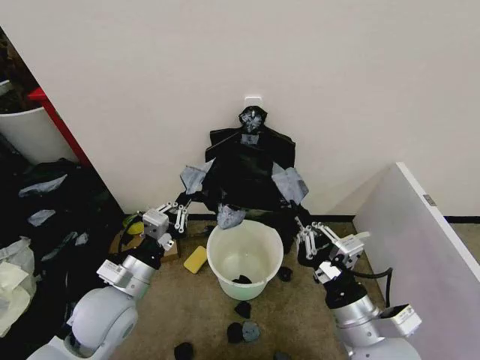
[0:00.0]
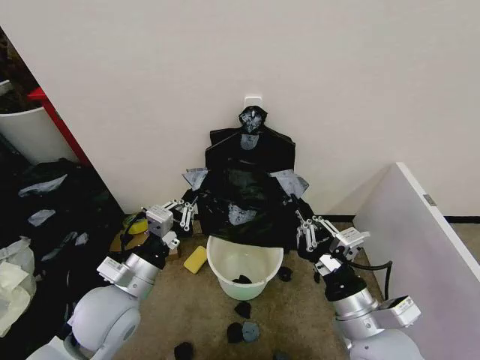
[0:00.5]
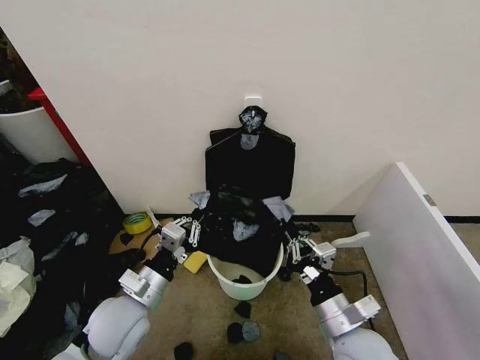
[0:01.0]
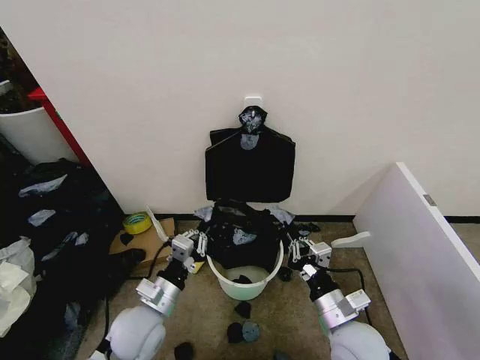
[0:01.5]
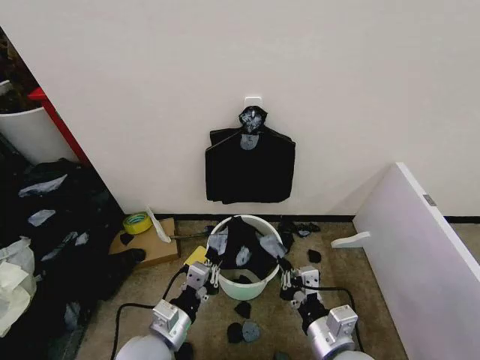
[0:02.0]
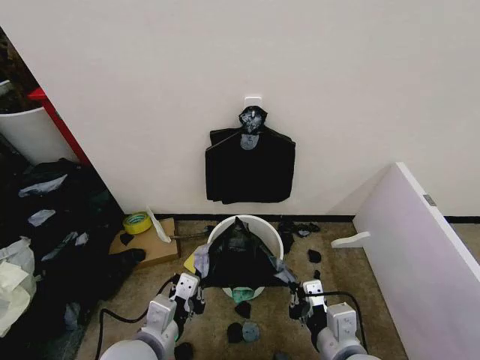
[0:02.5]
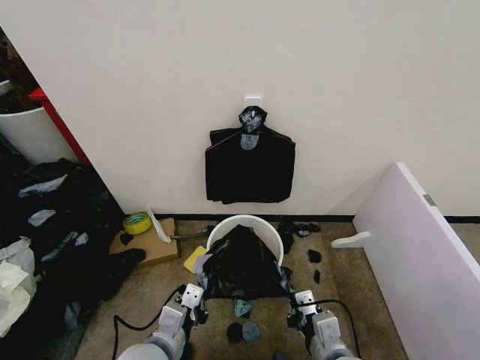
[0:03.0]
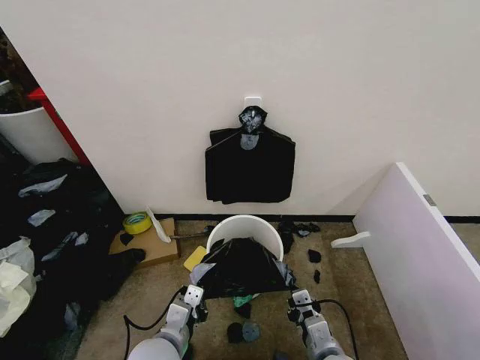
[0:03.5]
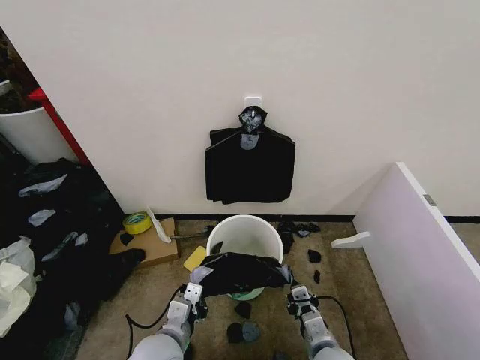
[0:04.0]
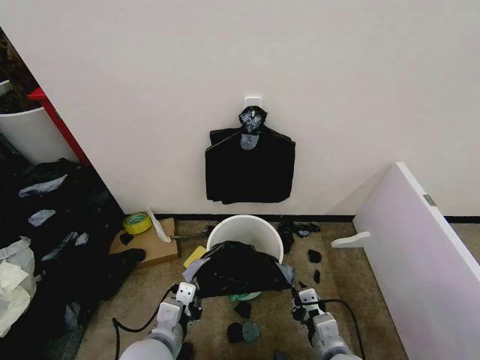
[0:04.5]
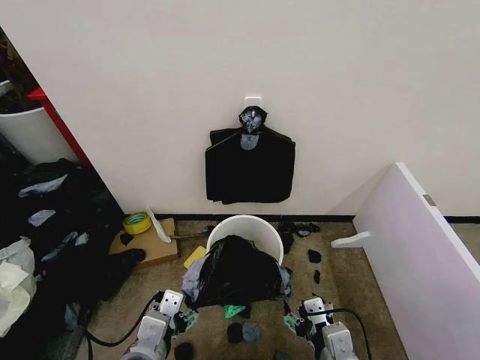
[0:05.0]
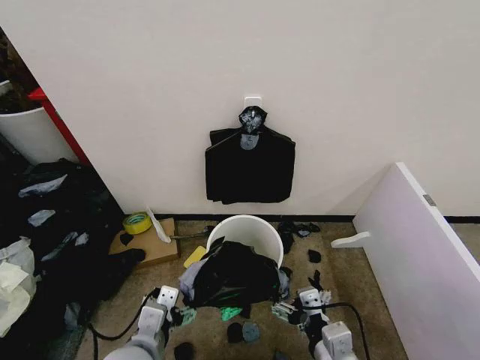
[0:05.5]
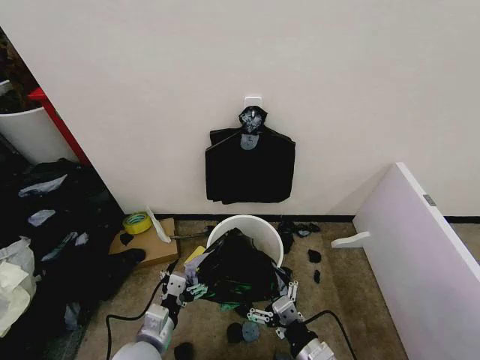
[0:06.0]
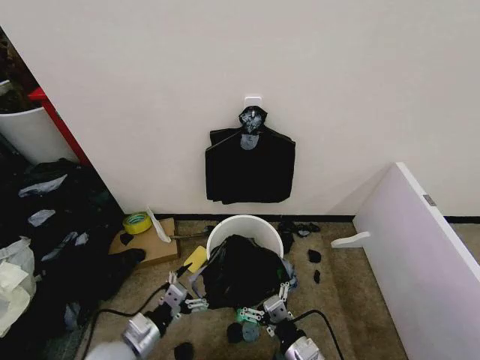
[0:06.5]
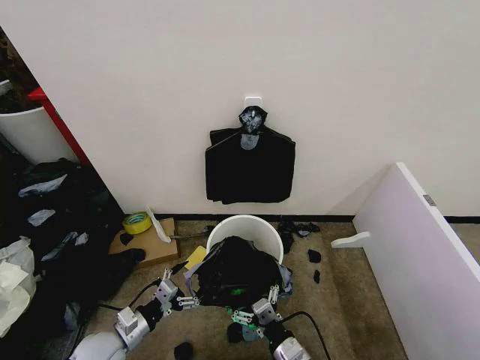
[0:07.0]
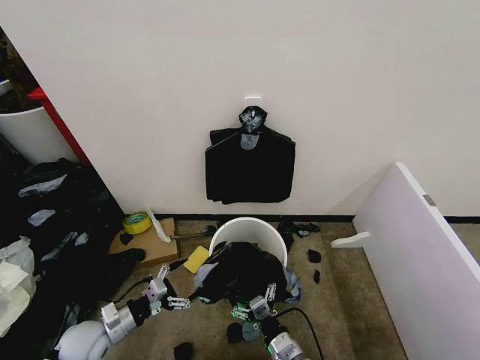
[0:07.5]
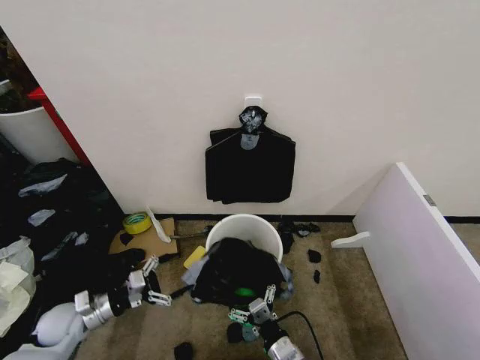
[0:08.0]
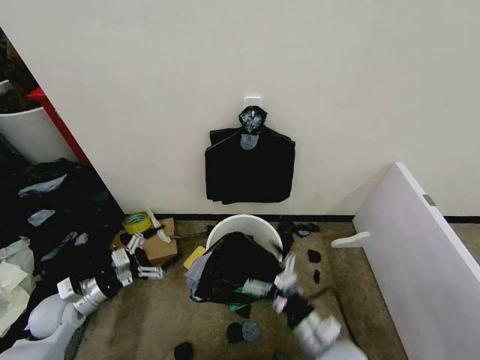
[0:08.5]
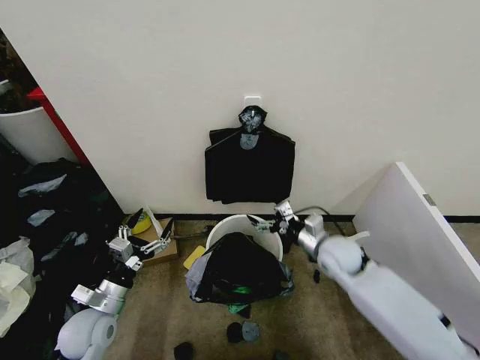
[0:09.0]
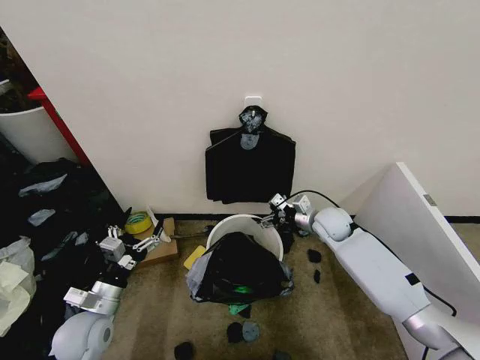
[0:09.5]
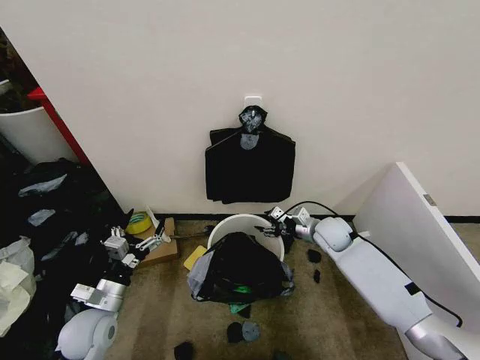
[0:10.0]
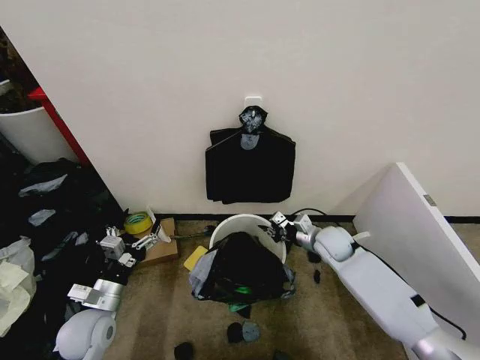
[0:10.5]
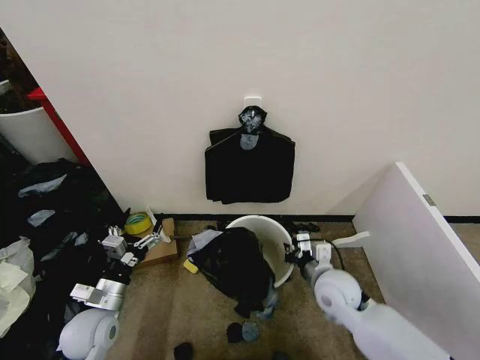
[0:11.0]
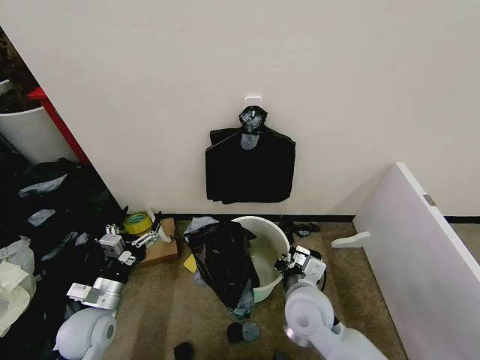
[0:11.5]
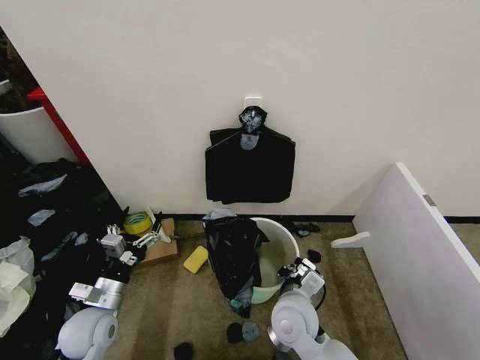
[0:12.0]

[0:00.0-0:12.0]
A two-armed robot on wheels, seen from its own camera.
Task of the whole recording: Place the garbage bag over the trash bin.
0:00.0 to 0:02.0: The left gripper is displaced downward, backward and to the right by approximately 10 cm.
0:02.0 to 0:04.0: The right gripper shifts approximately 10 cm downward, while the left gripper travels upward and back again, roughly 5 cm each way.
0:04.0 to 0:06.0: The right gripper opens up; the left gripper goes upward and returns, some 10 cm each way, and opens.
0:06.0 to 0:08.0: The left gripper moves to the left and forward, roughly 20 cm. Meanwhile the right gripper travels downward and to the left by approximately 10 cm.
0:08.0 to 0:10.0: The right gripper goes roughly 35 cm forward. Meanwhile the left gripper shifts some 10 cm to the right.
0:10.0 to 0:12.0: The right gripper travels backward and to the left by some 25 cm, and closes.

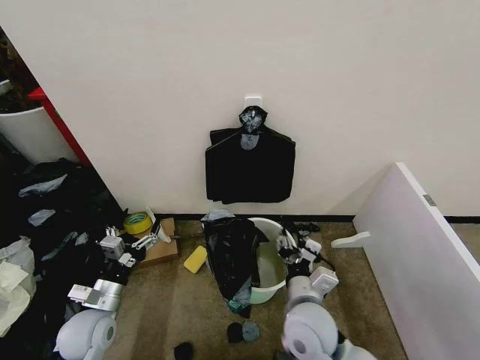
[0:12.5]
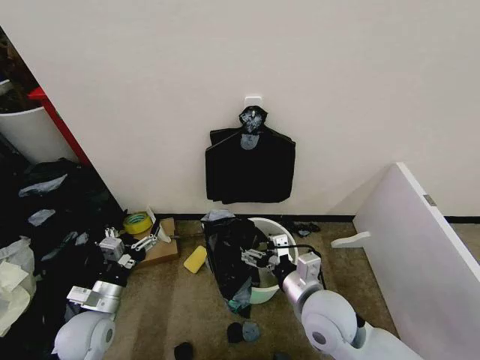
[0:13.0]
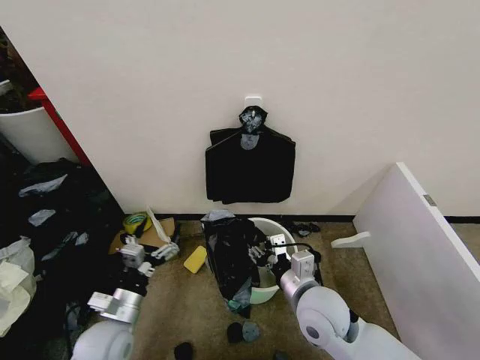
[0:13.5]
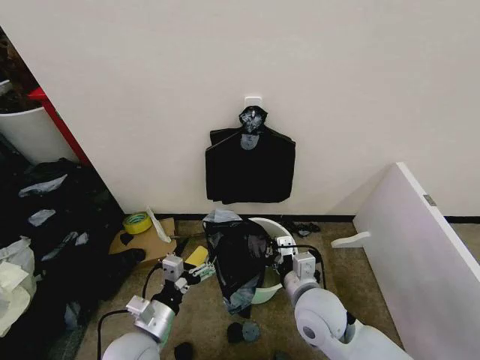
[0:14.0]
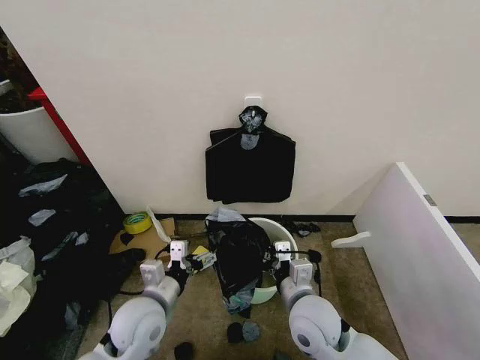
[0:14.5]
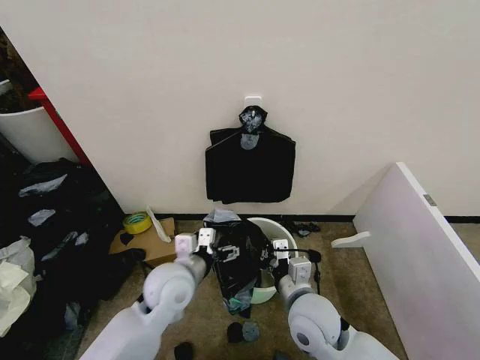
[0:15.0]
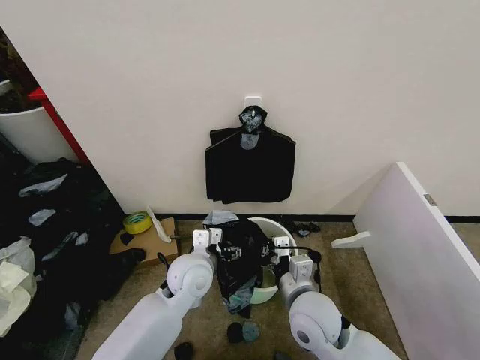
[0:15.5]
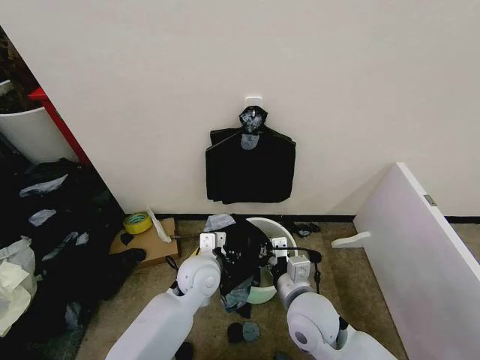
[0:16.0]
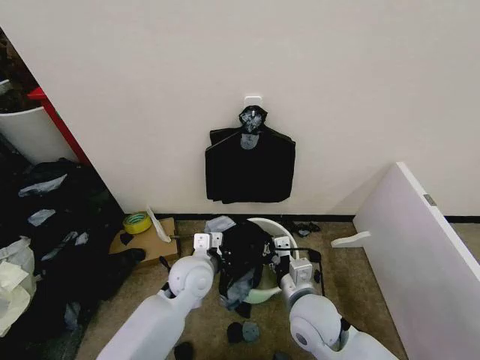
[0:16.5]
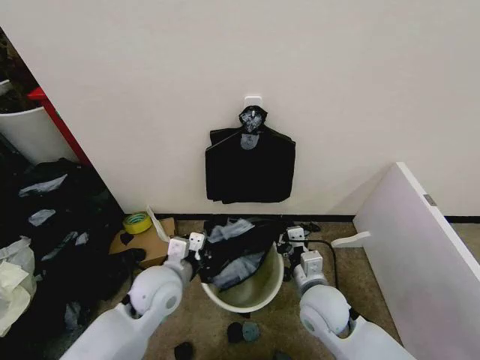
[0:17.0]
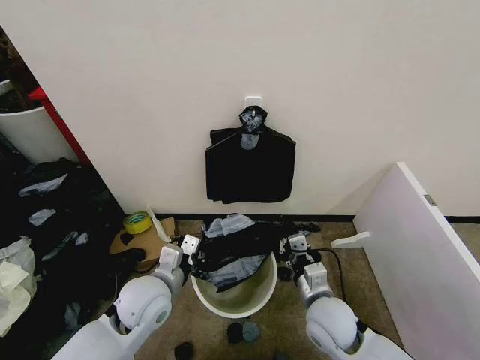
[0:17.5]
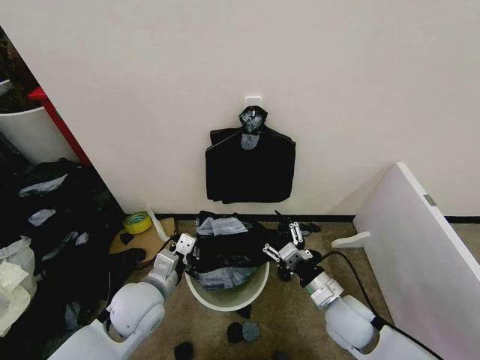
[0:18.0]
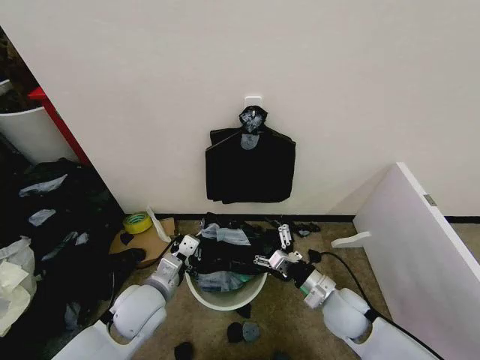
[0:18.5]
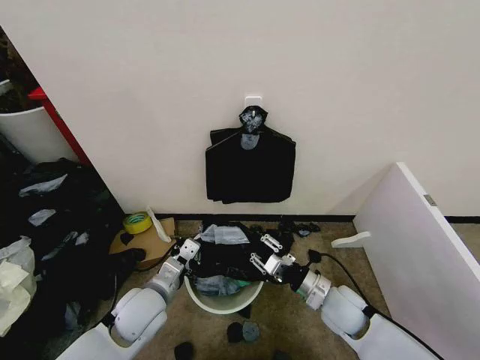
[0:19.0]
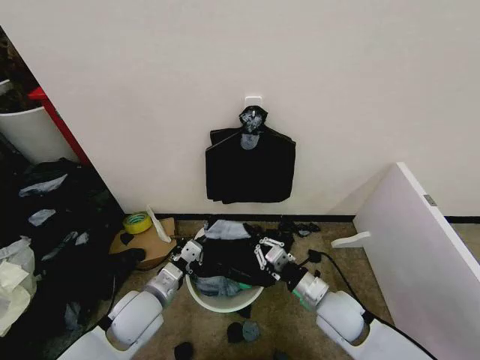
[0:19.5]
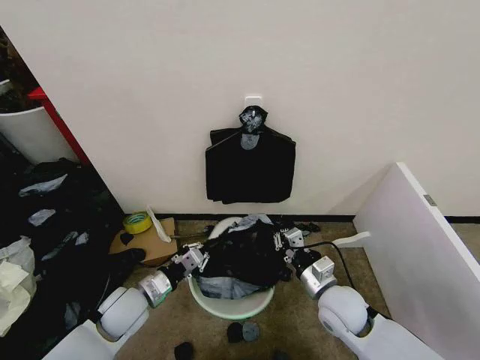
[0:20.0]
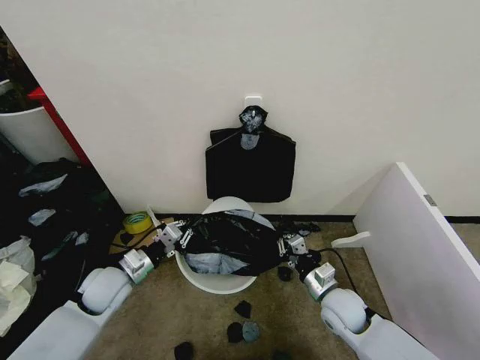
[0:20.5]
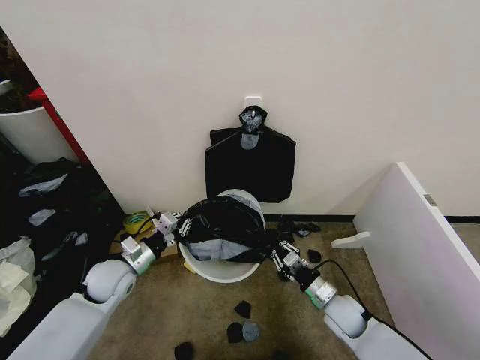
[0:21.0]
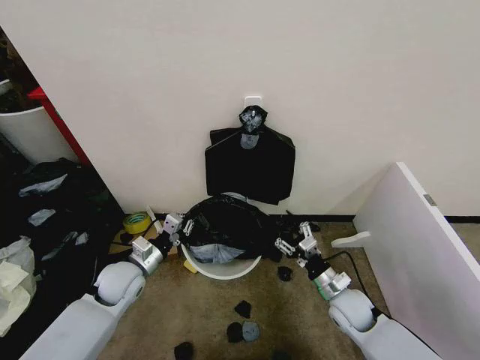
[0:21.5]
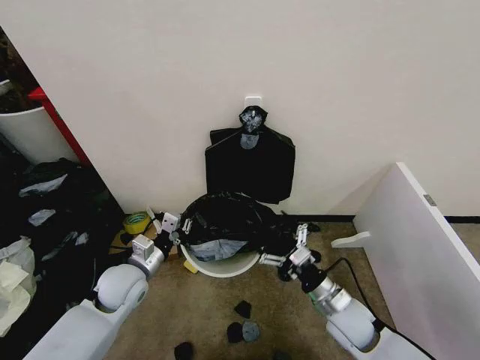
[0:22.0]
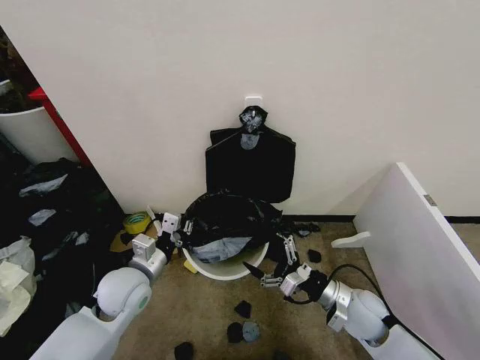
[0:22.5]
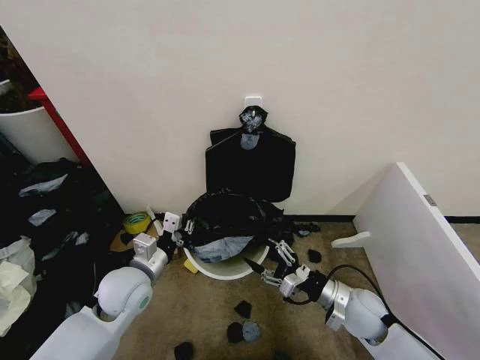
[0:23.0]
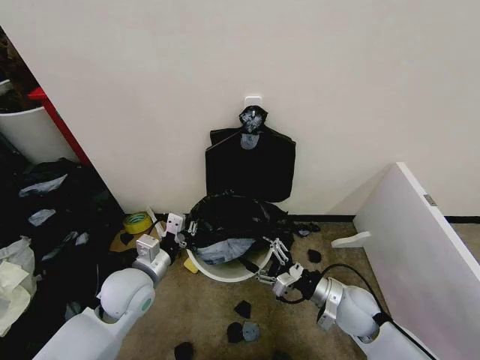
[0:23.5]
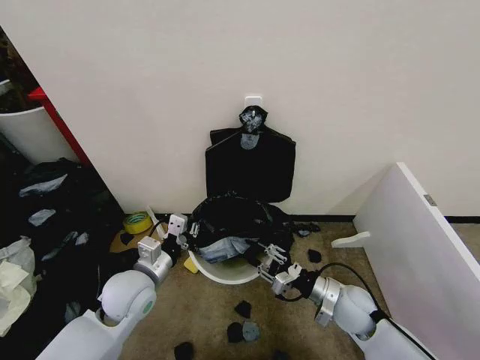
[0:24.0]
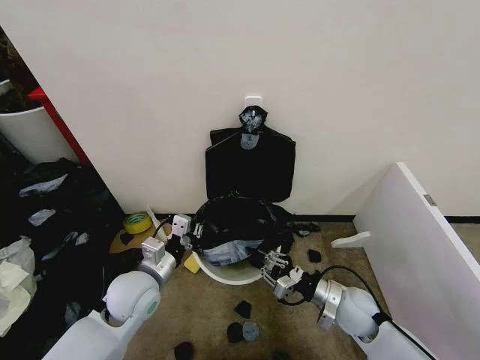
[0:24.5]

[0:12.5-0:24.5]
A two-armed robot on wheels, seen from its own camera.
Task of the whole recording: Place the garbage bag over the trash bin.
0:12.5 to 0:14.5: The left gripper is displaced to the right by roughly 10 cm, while the right gripper closes its fingers.
0:14.5 to 0:16.5: The left gripper goes about 15 cm forward and to the right, and closes.
0:16.5 to 0:18.5: The right gripper travels to the right and downward by approximately 10 cm, and opens; the left gripper heads to the left and backward, covering roughly 10 cm.
0:18.5 to 0:20.5: The left gripper heads to the left and forward, covering about 10 cm. The right gripper closes up.
0:20.5 to 0:22.5: The right gripper travels downward and back again, some 5 cm each way, and opens up. The left gripper is displaced to the right by approximately 5 cm.
0:22.5 to 0:24.5: The right gripper closes up.

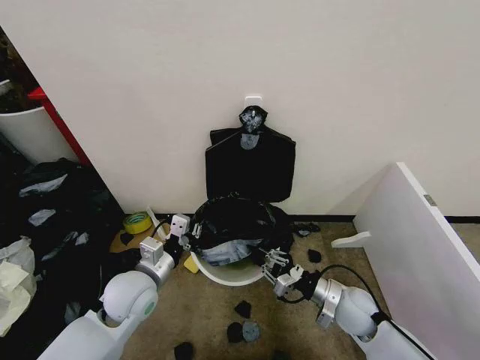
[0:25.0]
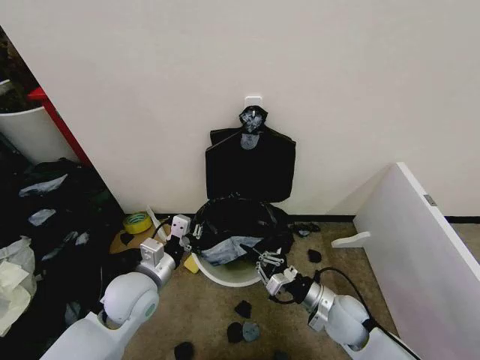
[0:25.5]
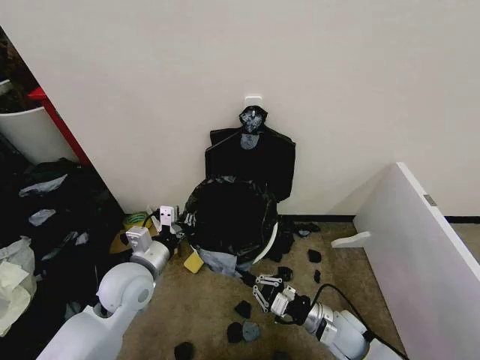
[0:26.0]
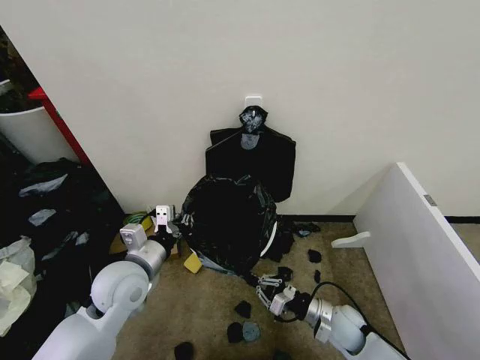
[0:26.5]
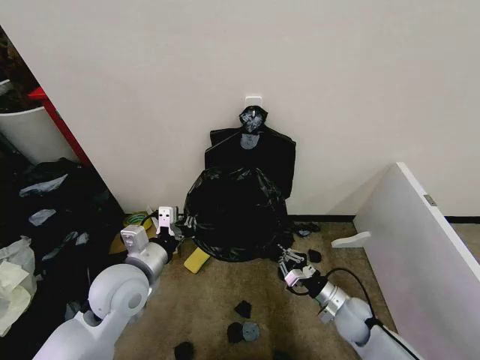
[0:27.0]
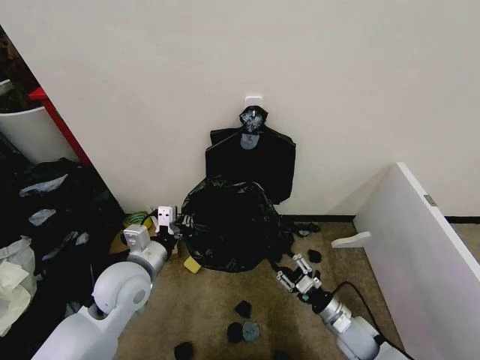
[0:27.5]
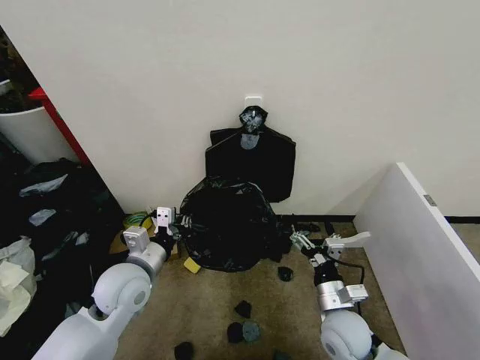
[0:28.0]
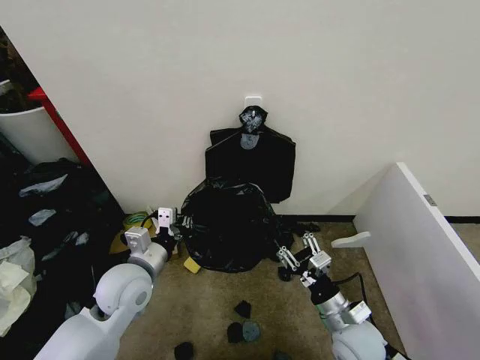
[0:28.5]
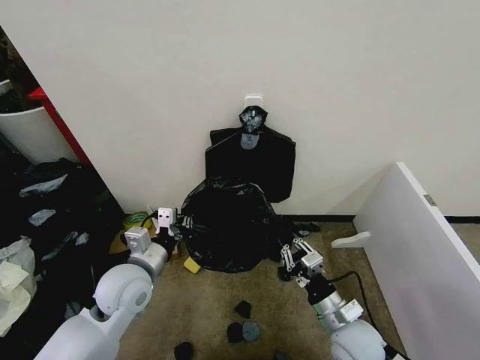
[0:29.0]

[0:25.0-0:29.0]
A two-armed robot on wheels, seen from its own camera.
Task of the whole recording: Place the garbage bag over the trash bin.
0:25.0 to 0:27.0: The right gripper shifts roughly 5 cm downward, while the left gripper heads upward, covering some 5 cm.
0:27.0 to 0:29.0: The right gripper travels upward, backward and to the left by about 15 cm, and opens, then closes again.
